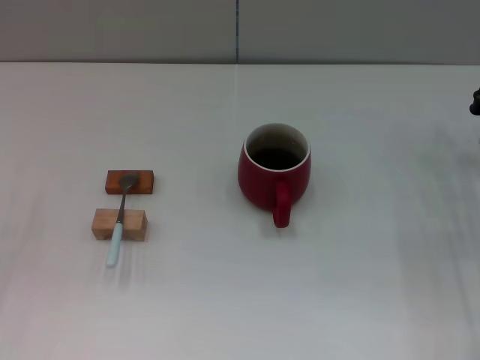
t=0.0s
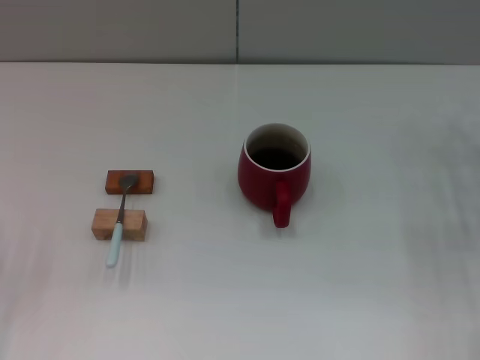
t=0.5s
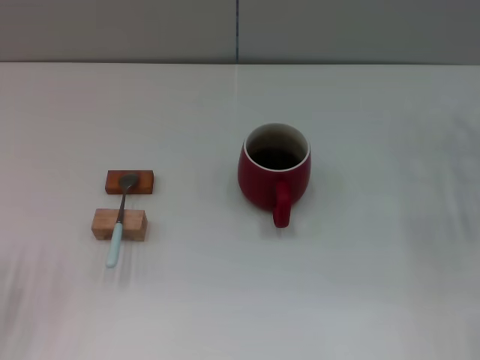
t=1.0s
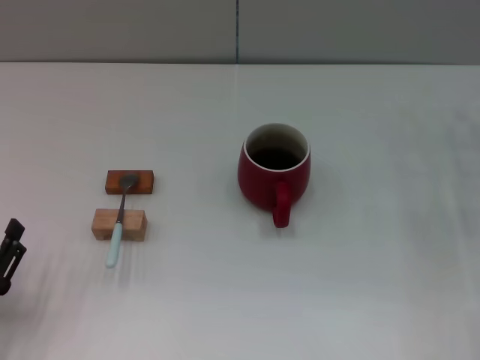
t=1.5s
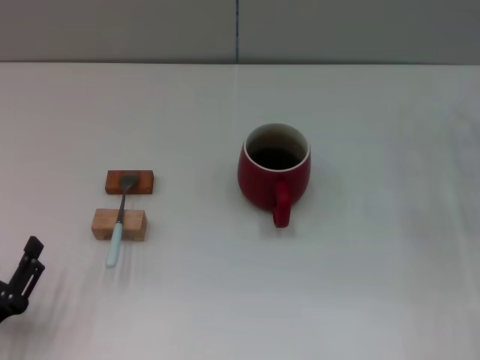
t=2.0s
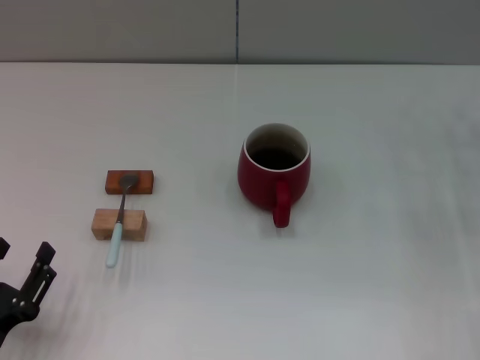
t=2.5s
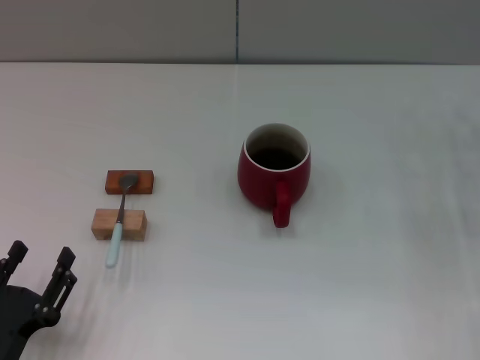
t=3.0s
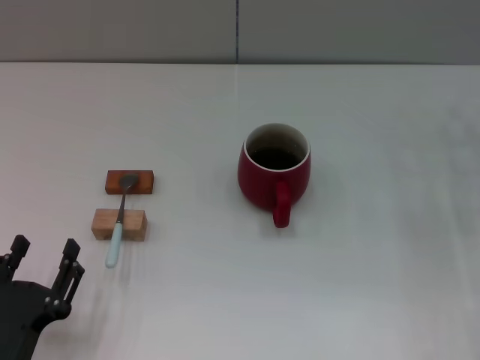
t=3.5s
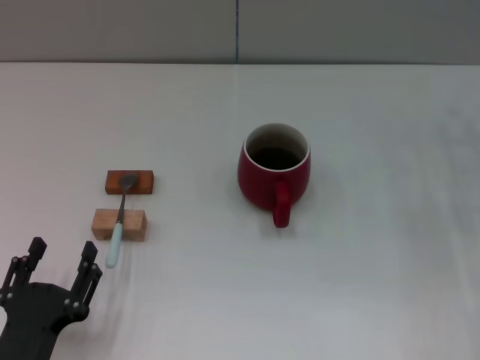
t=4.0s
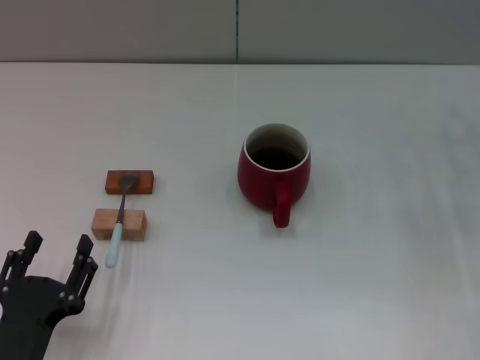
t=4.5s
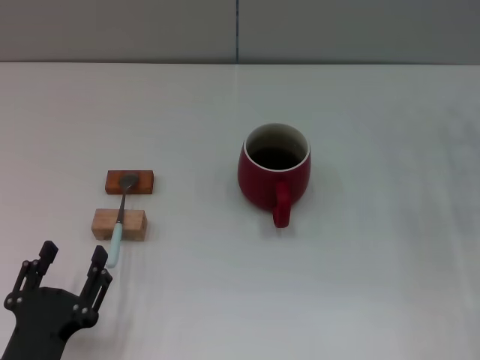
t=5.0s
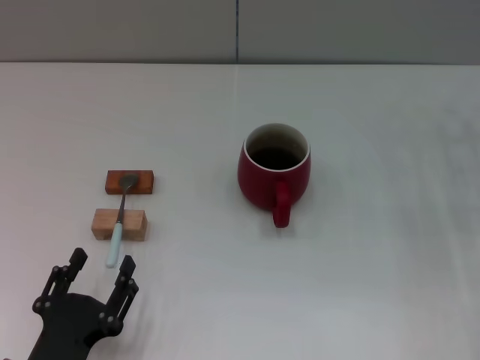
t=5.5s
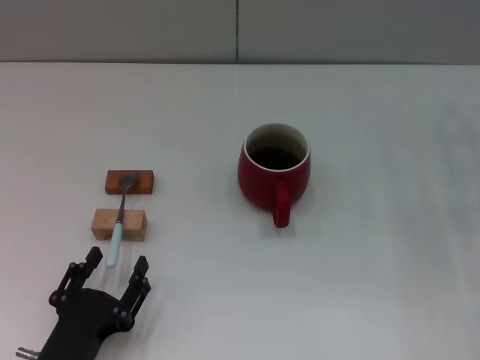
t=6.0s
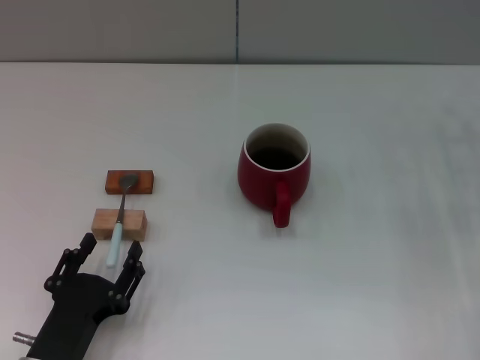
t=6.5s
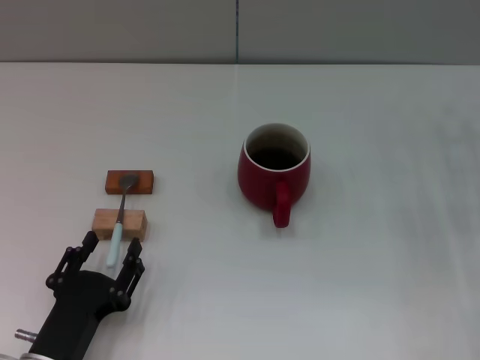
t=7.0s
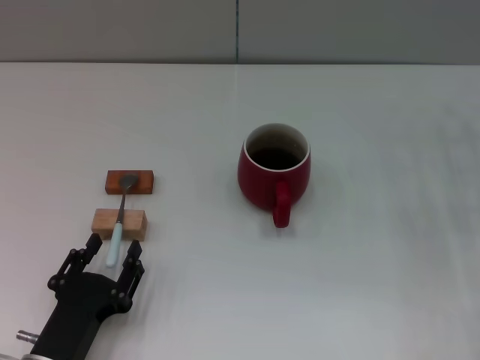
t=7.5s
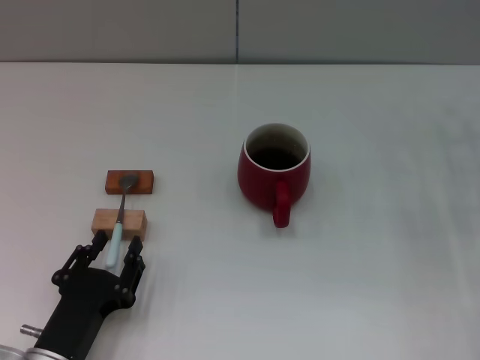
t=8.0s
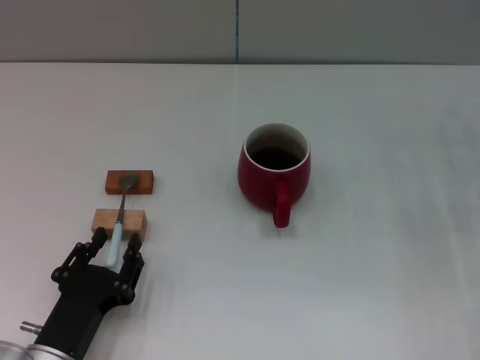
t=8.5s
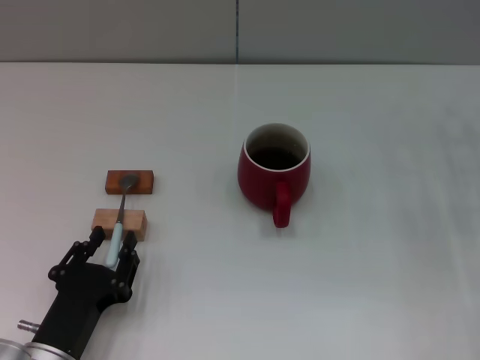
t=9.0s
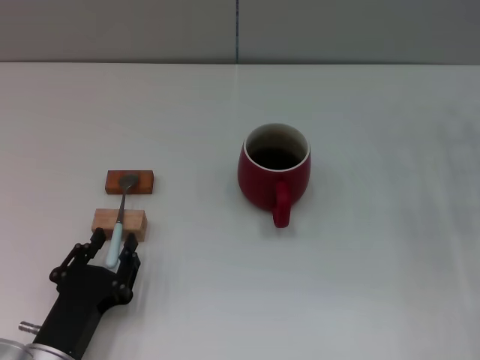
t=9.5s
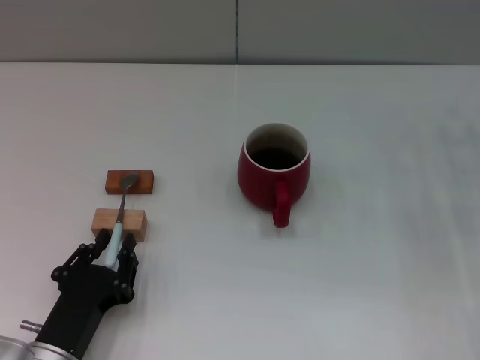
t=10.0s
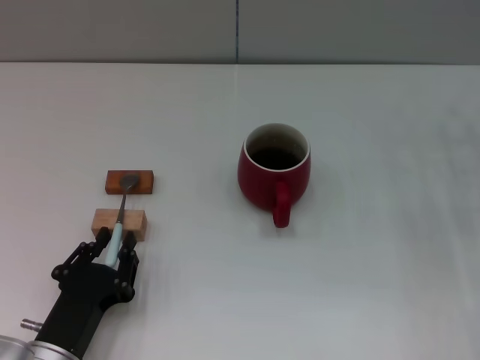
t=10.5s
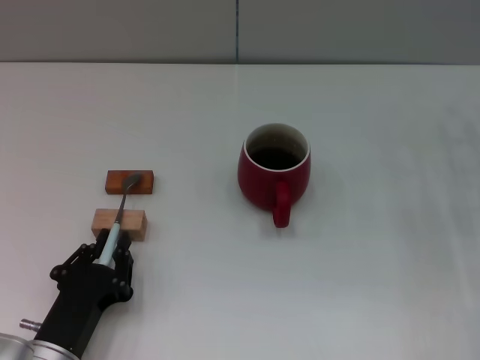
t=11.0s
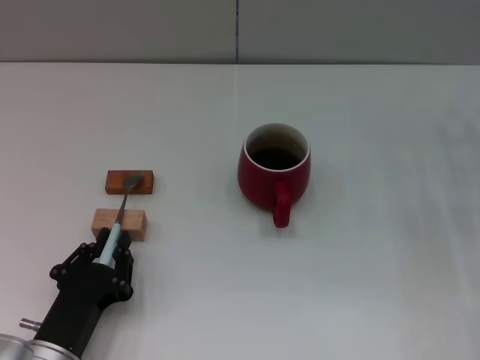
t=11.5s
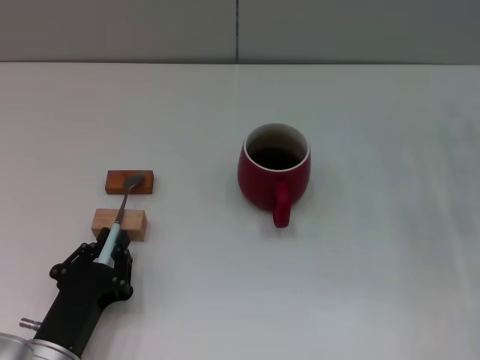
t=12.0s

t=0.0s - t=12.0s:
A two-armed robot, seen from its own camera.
Task of the whole recording: Move the red cup to the center, lift the blue spoon, stir it three times in the cup, and put the spoon into the cup.
t=0.0s - t=2.0s: The left gripper goes some 15 cm backward, to the right and downward.
t=2.0s - t=4.0s: The left gripper shifts approximately 5 cm to the right.
t=4.0s - t=8.0s: The grippers make only small movements.
t=8.0s - t=12.0s: The two grippers keep their place.

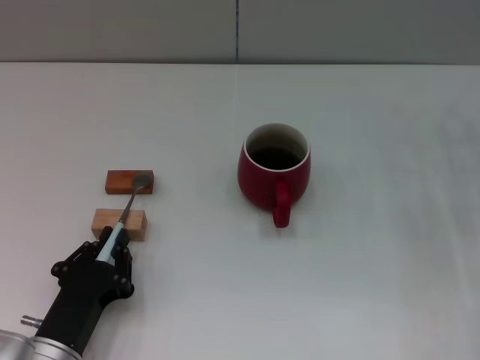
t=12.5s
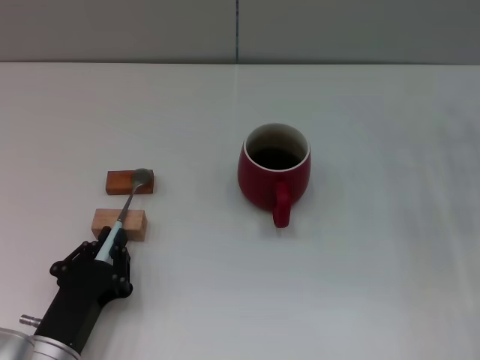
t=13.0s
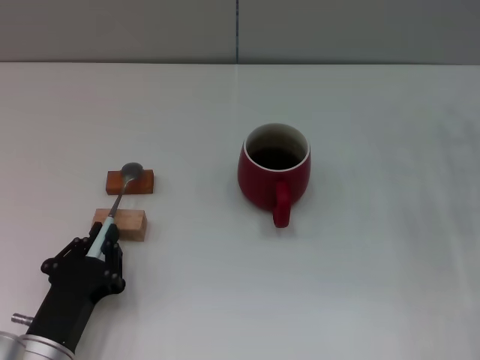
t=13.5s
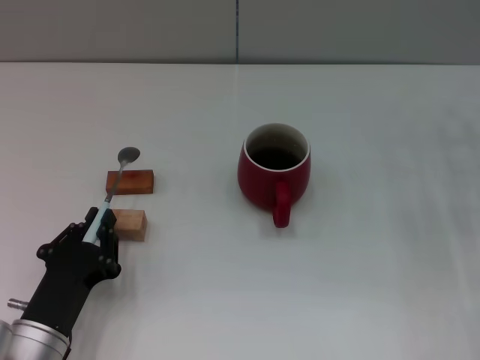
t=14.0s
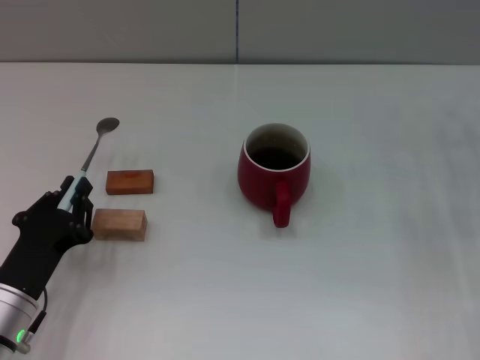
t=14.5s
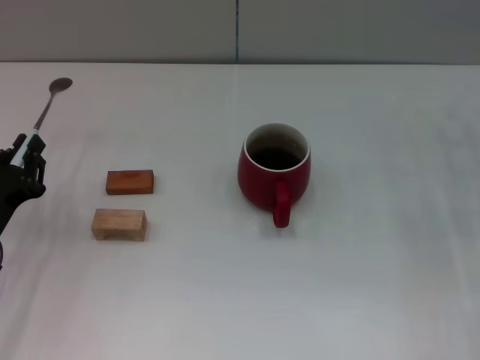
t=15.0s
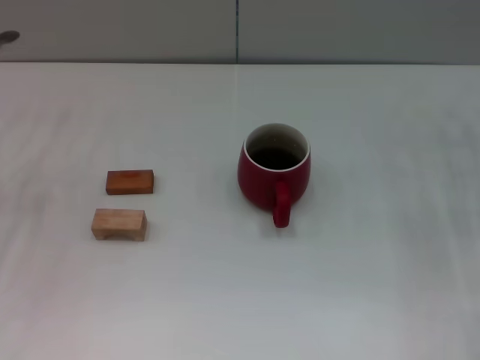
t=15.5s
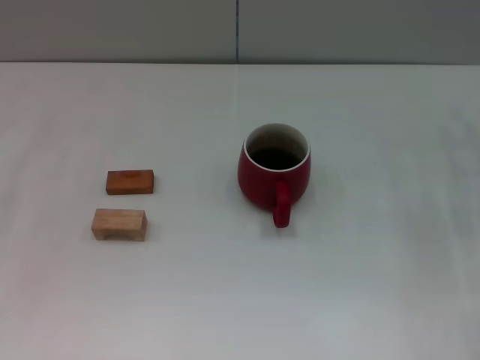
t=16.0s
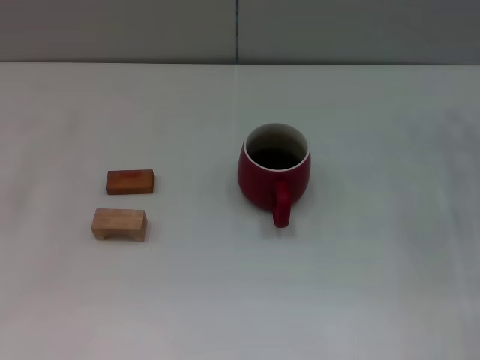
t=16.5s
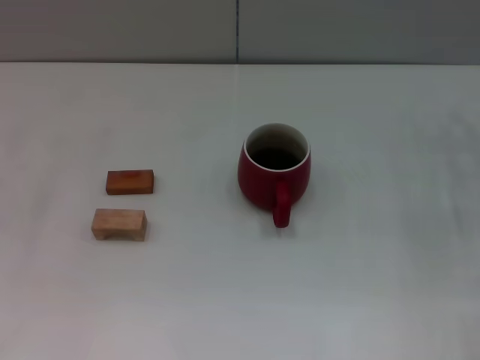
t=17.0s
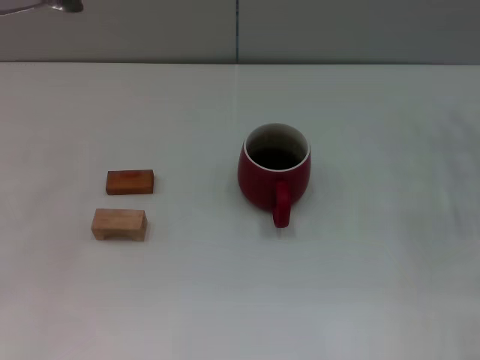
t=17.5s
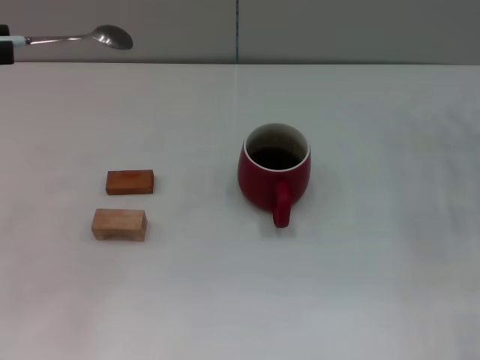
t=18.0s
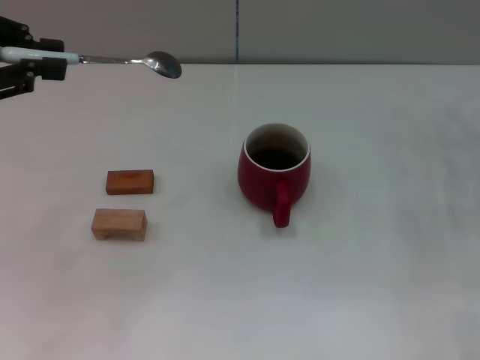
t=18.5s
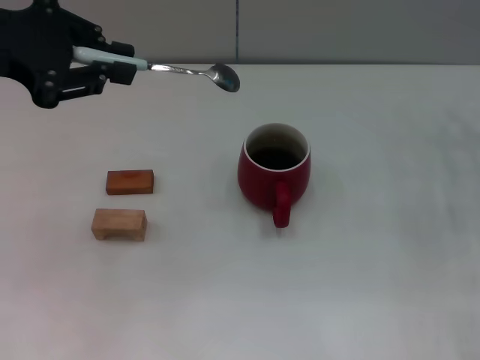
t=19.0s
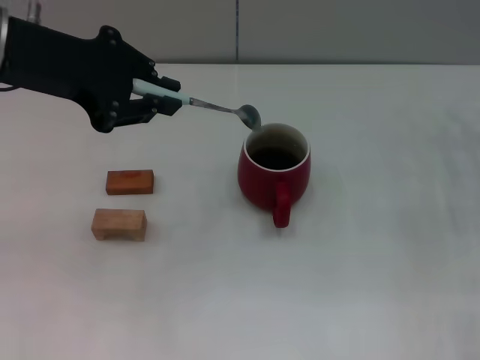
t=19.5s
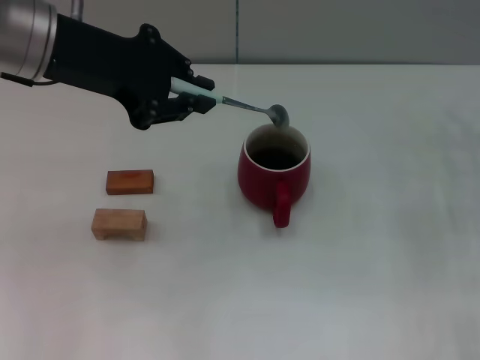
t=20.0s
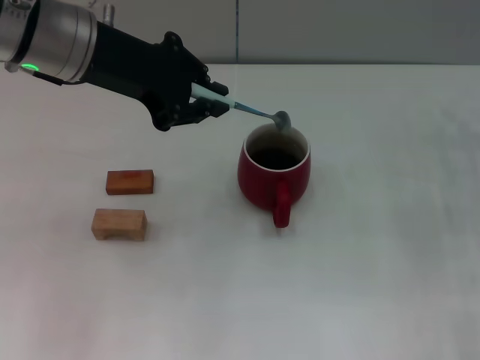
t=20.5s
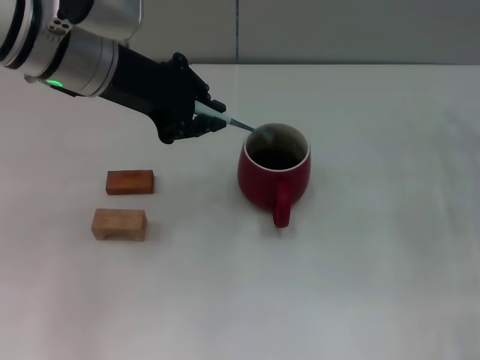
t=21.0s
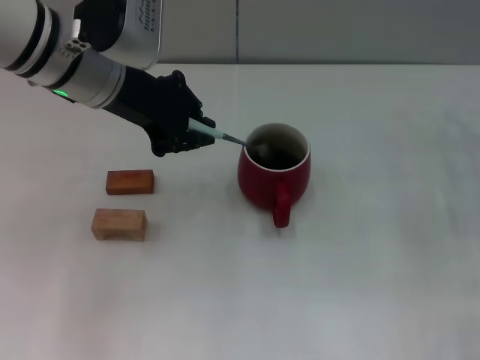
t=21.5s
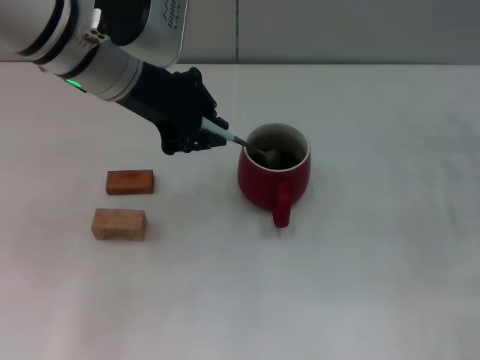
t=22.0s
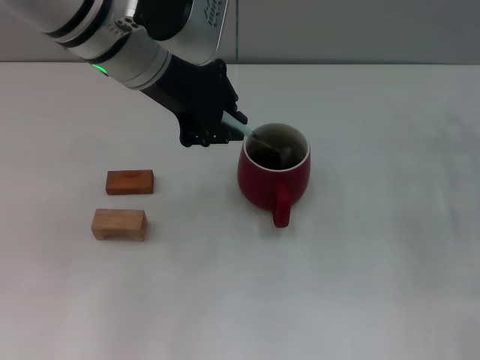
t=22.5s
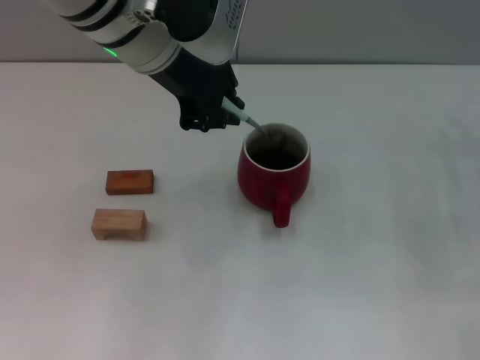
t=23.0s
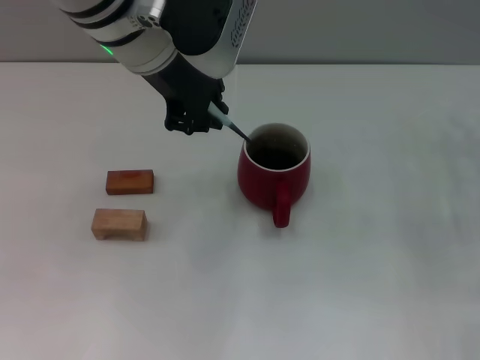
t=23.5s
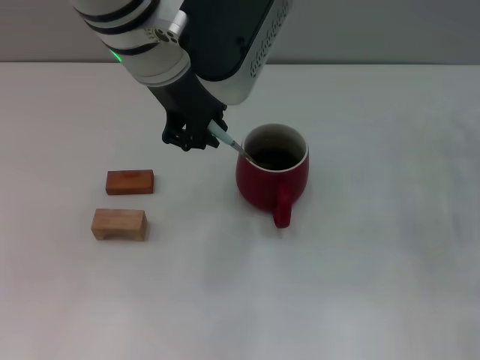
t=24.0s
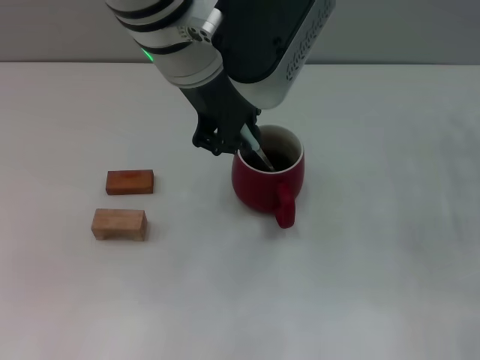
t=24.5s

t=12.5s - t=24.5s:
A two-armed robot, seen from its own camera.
Task of the whole recording: Move the red cup to the center, lift the blue spoon, stir it three times in the cup, and put the spoon into the cup.
t=12.5s - t=14.5s: The left gripper ends up approximately 5 cm from where it was.
t=14.5s - t=16.5s: The left gripper heads to the left, upward and forward, covering about 25 cm.
t=16.5s - t=18.5s: The left gripper moves upward and to the right, about 15 cm.
t=18.5s - t=20.5s: The left gripper travels to the right by some 15 cm.
t=20.5s - t=22.5s: The left gripper shifts about 5 cm to the right.
t=22.5s - t=24.5s: The left gripper heads to the right, covering some 5 cm.

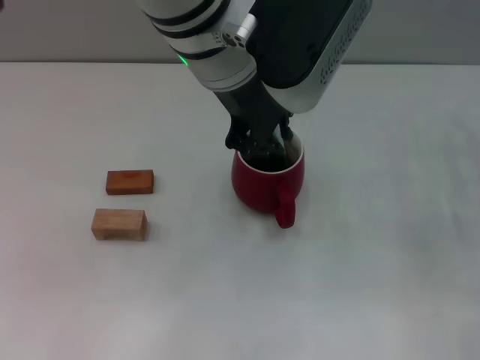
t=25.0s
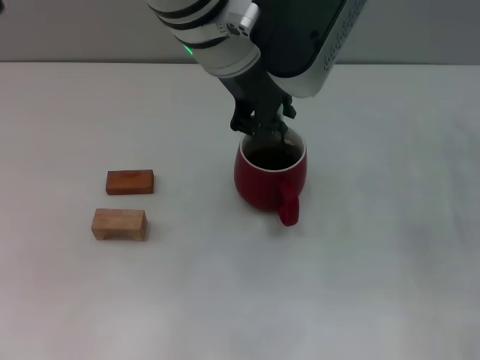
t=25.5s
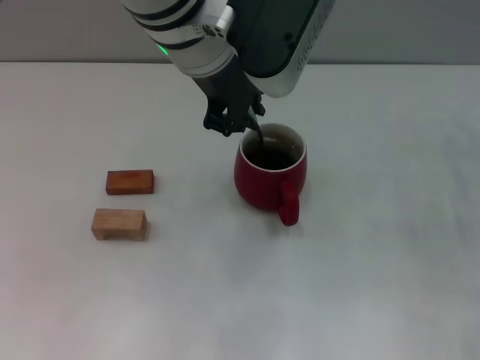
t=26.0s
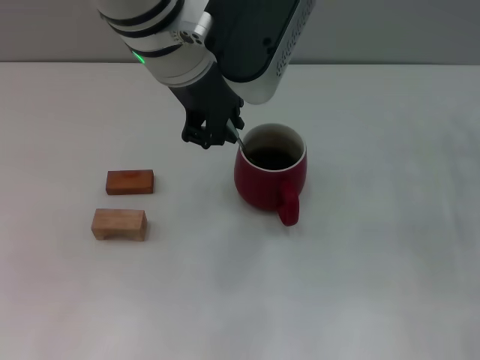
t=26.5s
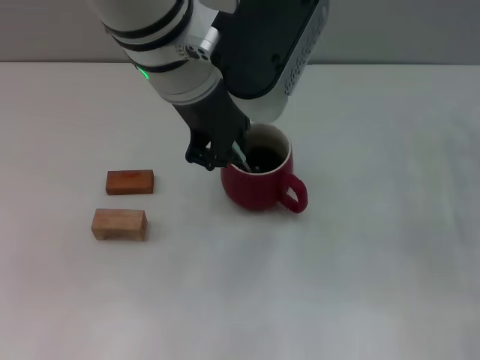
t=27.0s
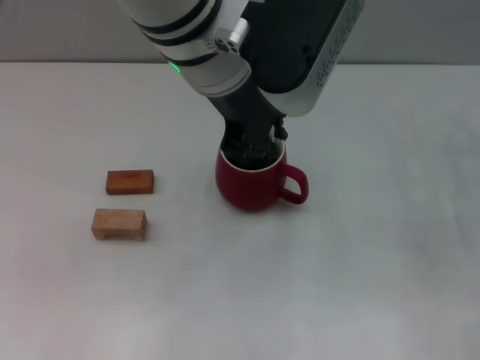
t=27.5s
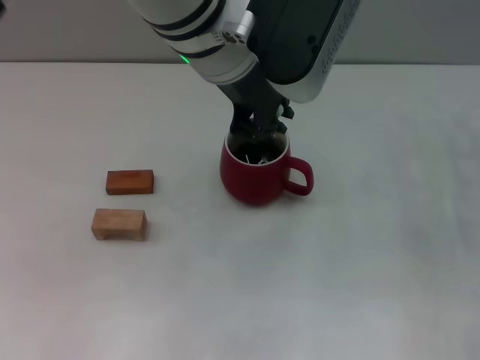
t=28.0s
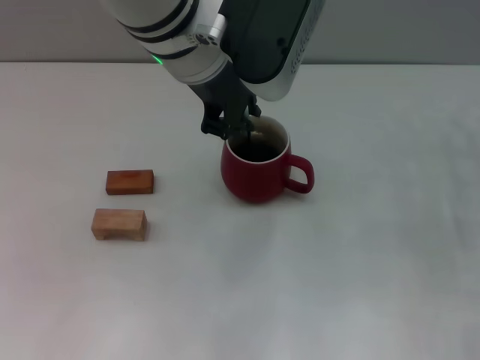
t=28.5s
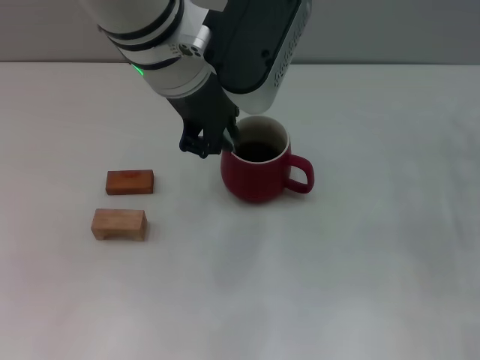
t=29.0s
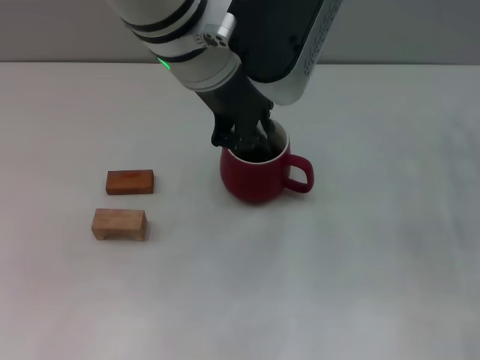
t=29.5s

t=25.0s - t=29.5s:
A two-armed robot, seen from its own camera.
Task of the whole recording: Move the red cup to the center, lift the blue spoon, stir it three times in the cup, and put the spoon into the cup.
t=25.0s - t=29.5s: There are only small adjustments of the grippers.
